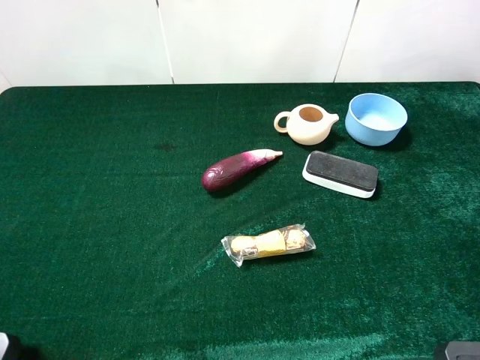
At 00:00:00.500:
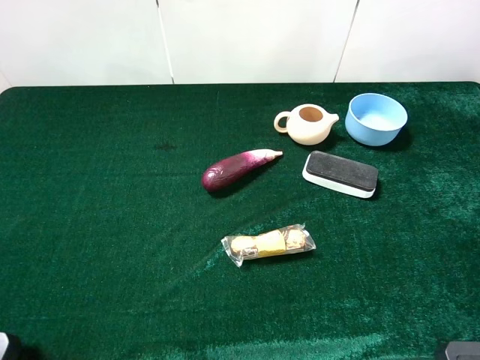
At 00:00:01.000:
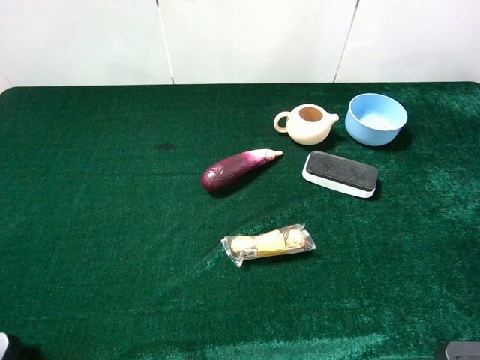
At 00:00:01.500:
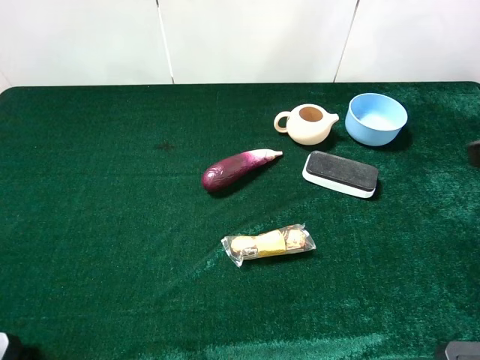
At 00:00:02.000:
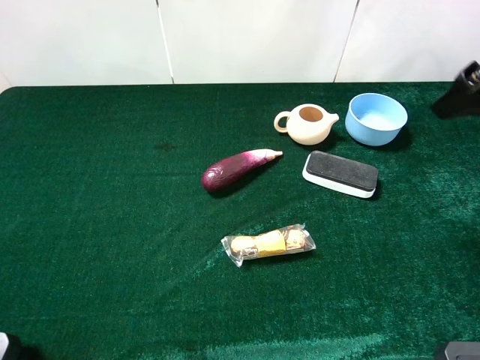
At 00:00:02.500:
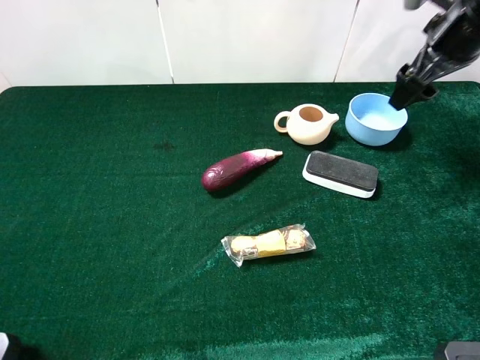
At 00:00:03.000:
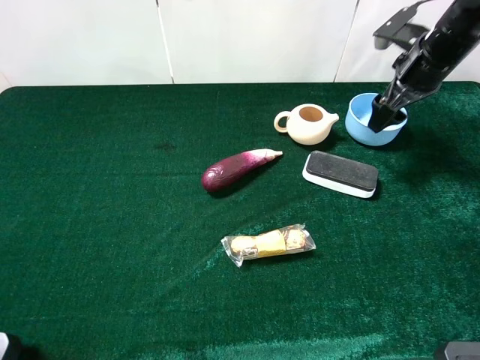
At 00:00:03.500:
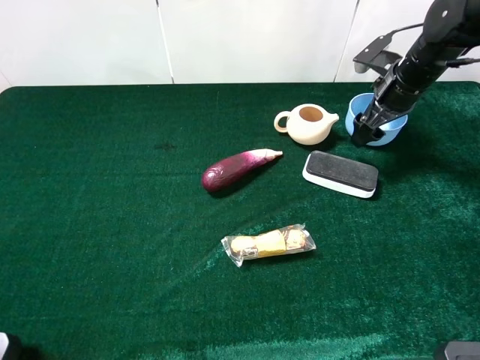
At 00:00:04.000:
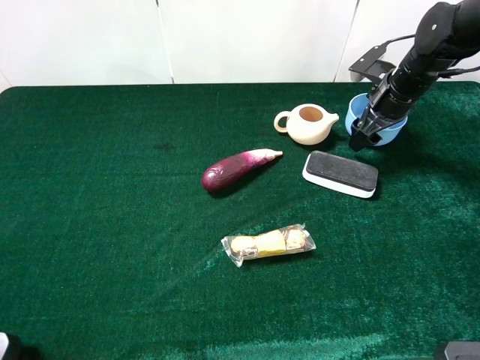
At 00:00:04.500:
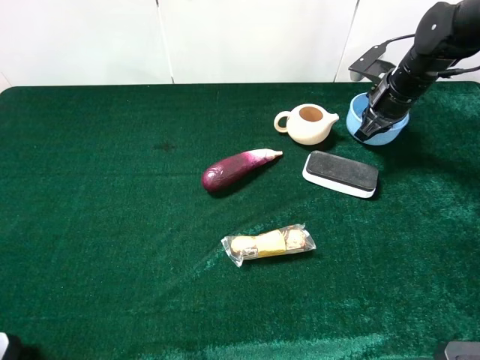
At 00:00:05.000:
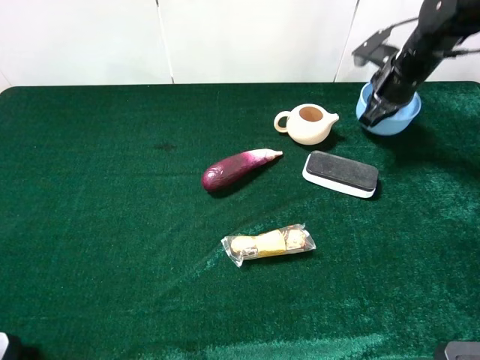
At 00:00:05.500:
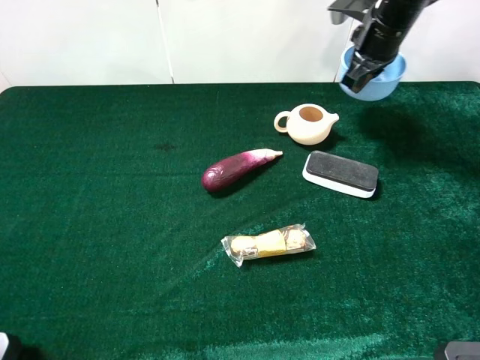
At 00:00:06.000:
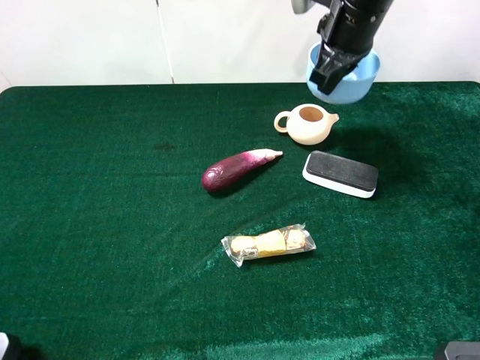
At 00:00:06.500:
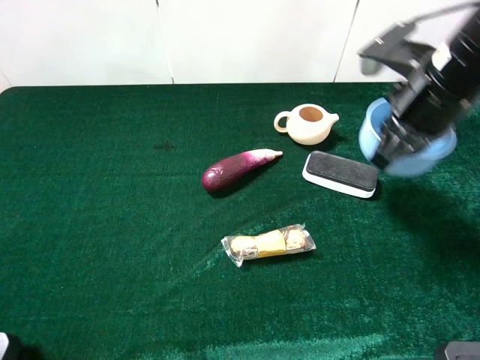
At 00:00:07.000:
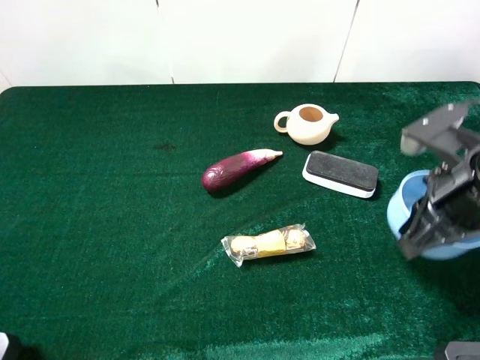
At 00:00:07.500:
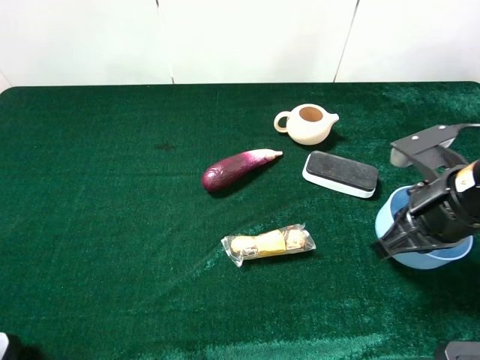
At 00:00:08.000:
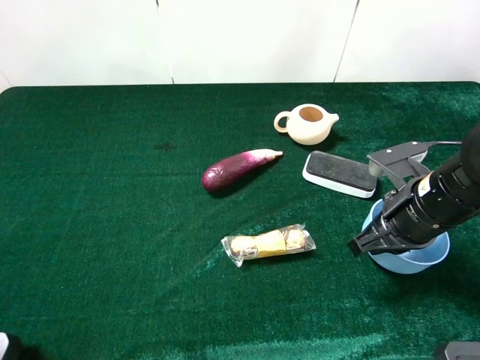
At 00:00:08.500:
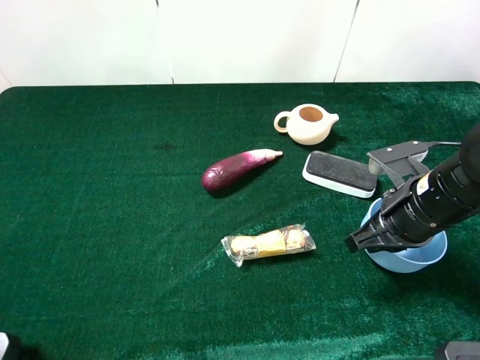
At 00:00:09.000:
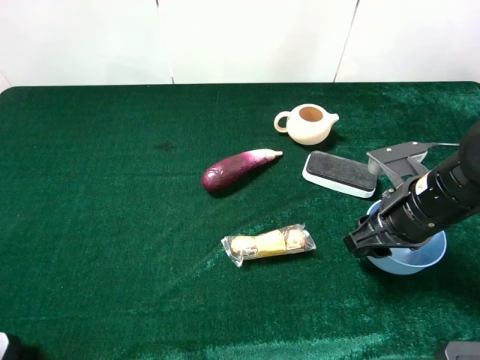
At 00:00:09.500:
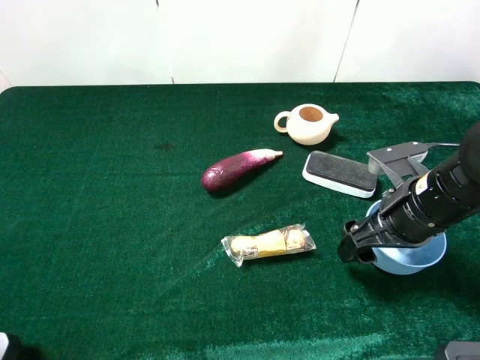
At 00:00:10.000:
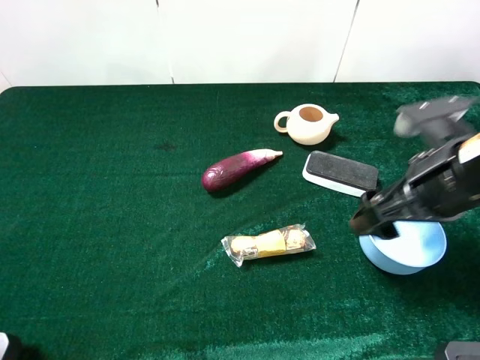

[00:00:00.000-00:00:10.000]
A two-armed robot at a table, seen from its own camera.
Task of the whole recording: the gripper move the object.
Step, 00:00:00.000 to 00:00:04.500: Grasp the blue bowl with the right gripper.
Step, 00:00:05.000 to 00:00:09.000: Place the blue bowl on the table with the right gripper.
00:00:00.000 to 00:00:02.000: The right gripper shifts about 25 cm forward.
00:00:02.000 to 00:00:04.000: The right gripper goes approximately 25 cm downward and forward.
00:00:04.000 to 00:00:06.000: The right gripper goes approximately 15 cm upward and to the left, and closes up.
00:00:06.000 to 00:00:08.000: The right gripper heads backward, downward and to the right, covering about 25 cm.
00:00:08.000 to 00:00:10.000: The right gripper is displaced upward by about 10 cm, and opens.
